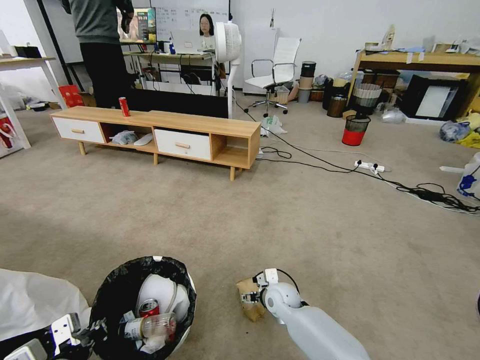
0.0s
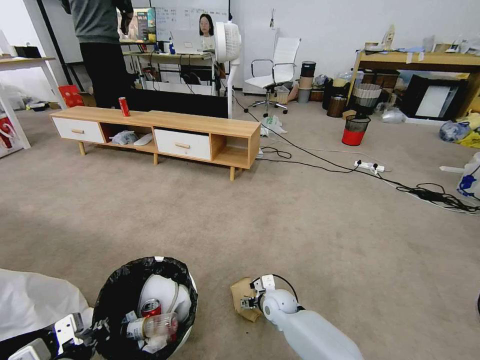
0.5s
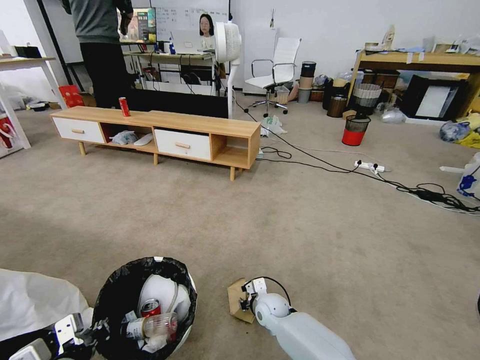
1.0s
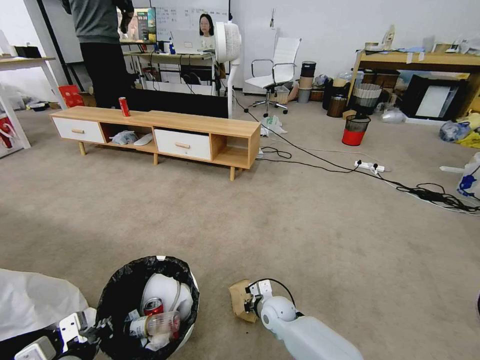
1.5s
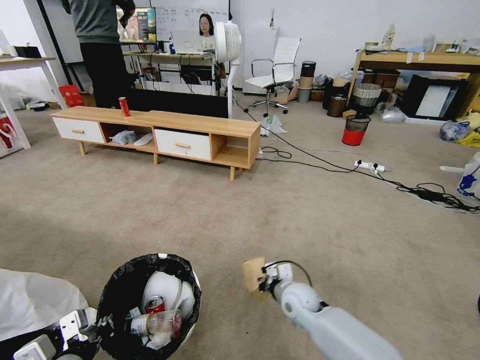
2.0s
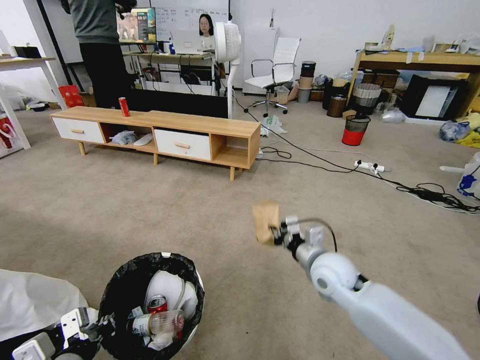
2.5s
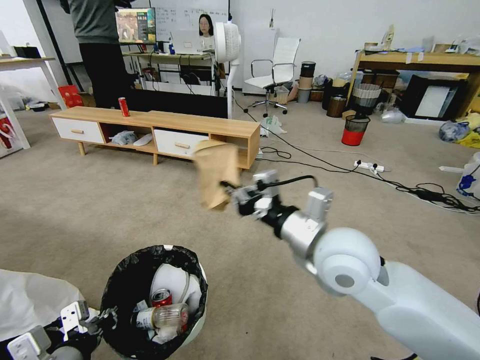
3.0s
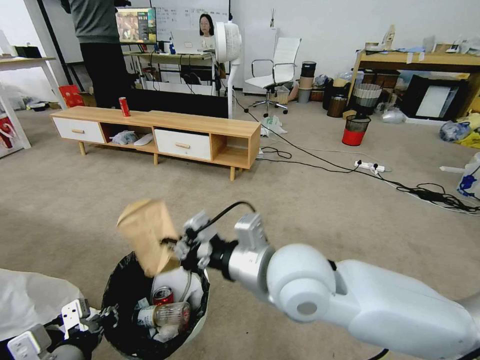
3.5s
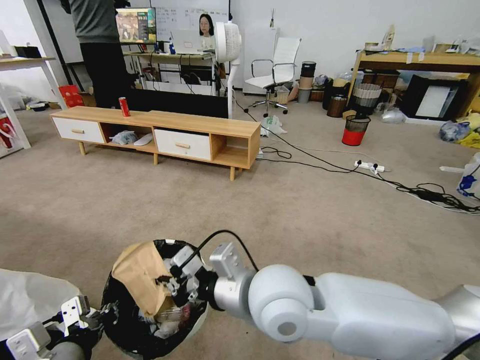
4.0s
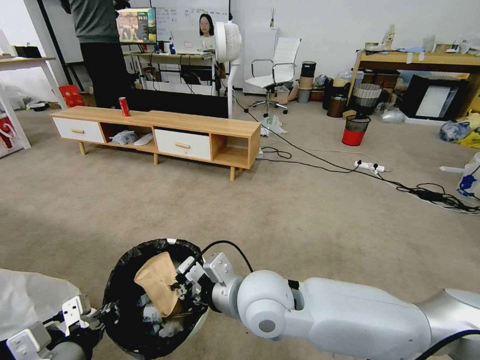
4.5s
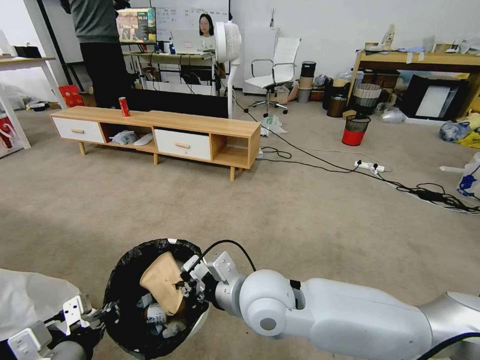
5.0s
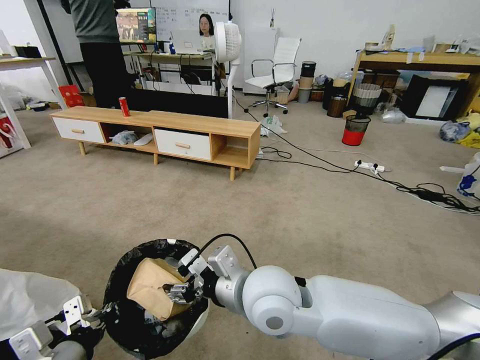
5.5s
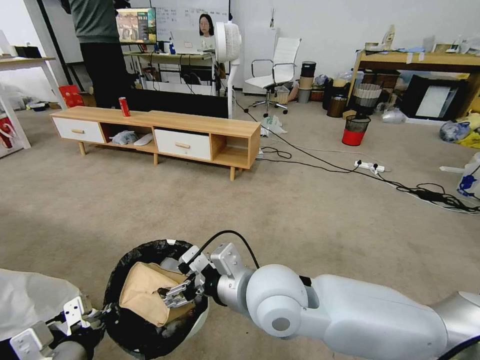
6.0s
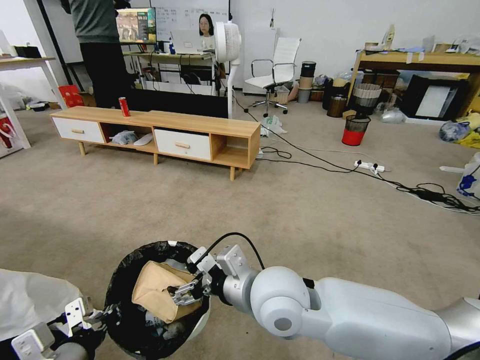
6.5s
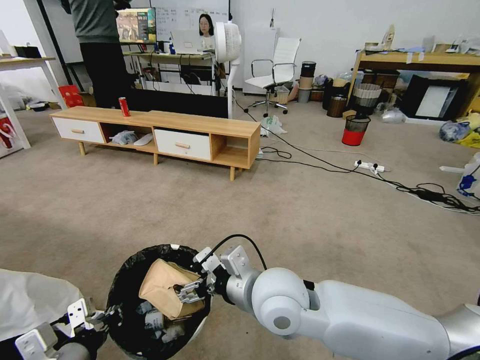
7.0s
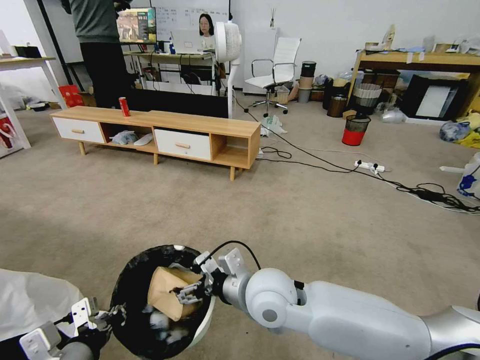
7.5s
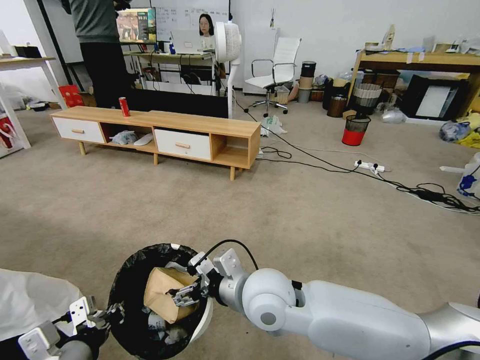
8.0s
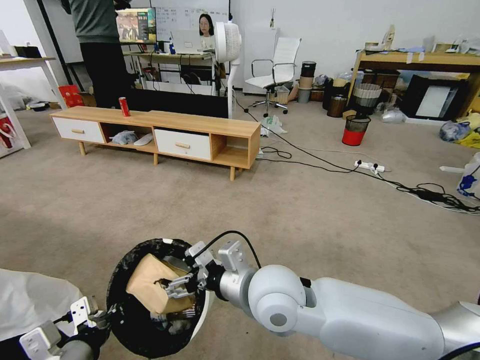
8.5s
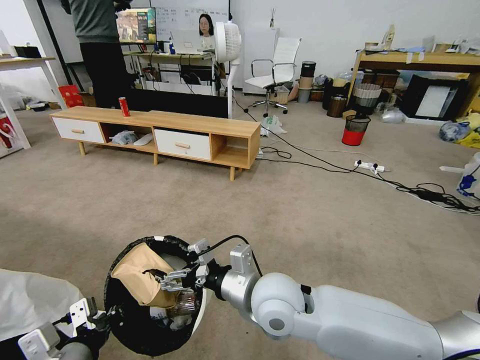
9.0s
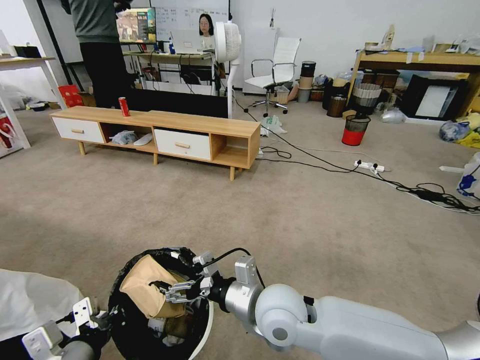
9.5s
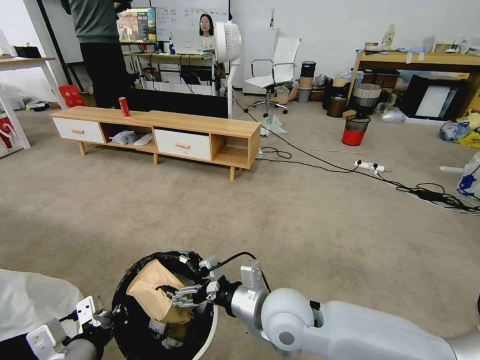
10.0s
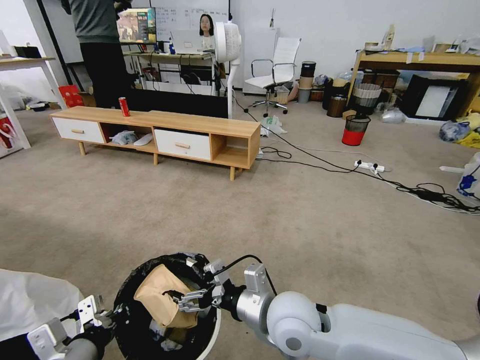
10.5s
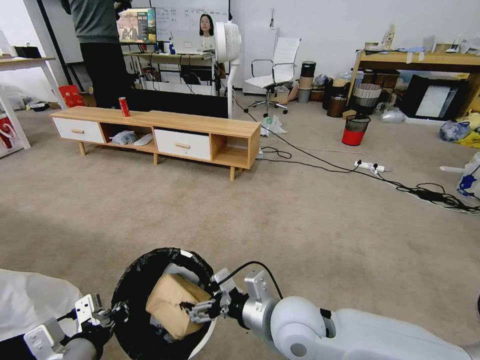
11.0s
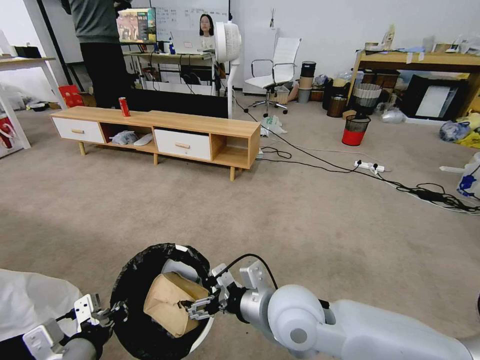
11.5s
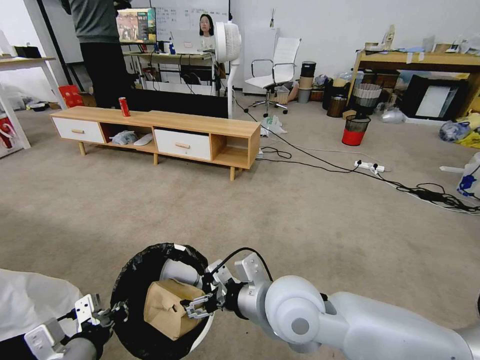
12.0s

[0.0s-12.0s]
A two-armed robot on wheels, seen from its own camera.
Task of the whole recording: Pick up the trash bin and place the garbage on the floor into it.
0.0s to 2.0s: The right gripper ends up roughly 5 cm from where it was, and closes.
2.0s to 4.0s: The right gripper is displaced upward and backward by about 30 cm.
4.0s to 6.0s: The right gripper opens up.
6.0s to 8.0s: The right gripper moves about 5 cm.
8.0s to 10.0s: The left gripper closes its fingers. The right gripper ends up about 5 cm from where it was.
10.0s to 12.0s: The right gripper is displaced upward by approximately 5 cm.

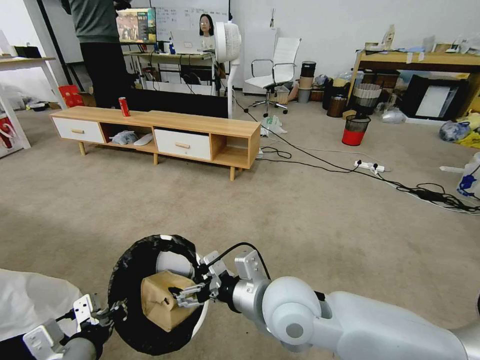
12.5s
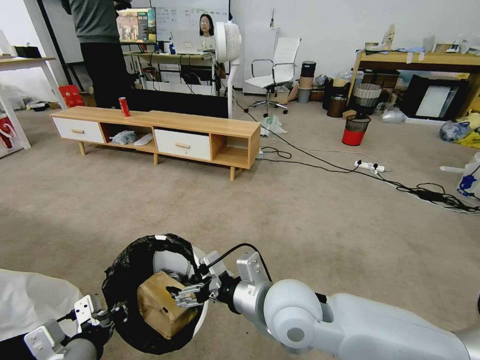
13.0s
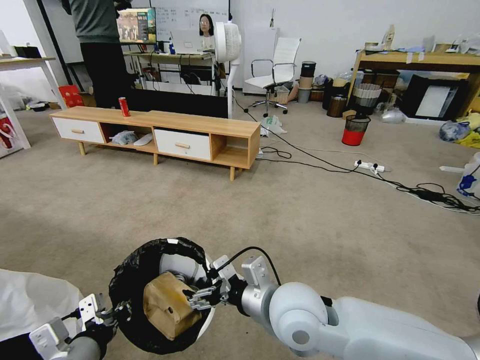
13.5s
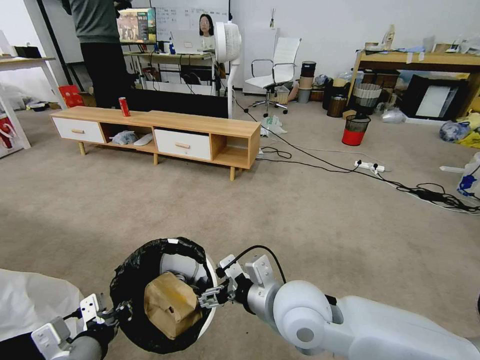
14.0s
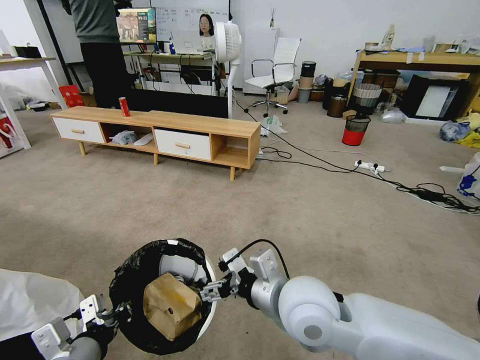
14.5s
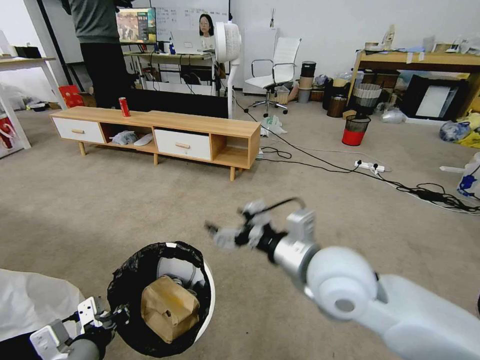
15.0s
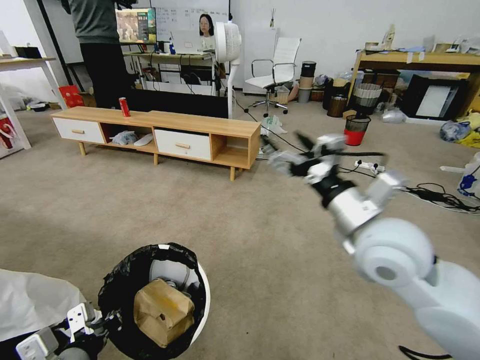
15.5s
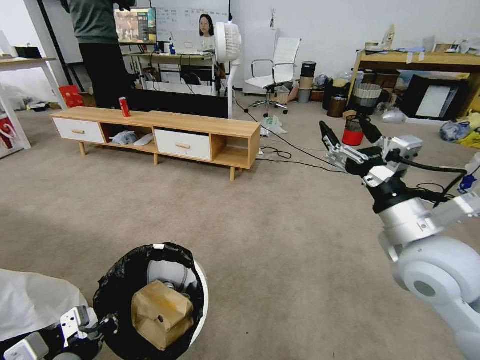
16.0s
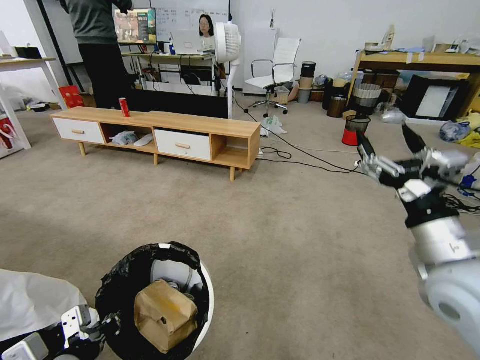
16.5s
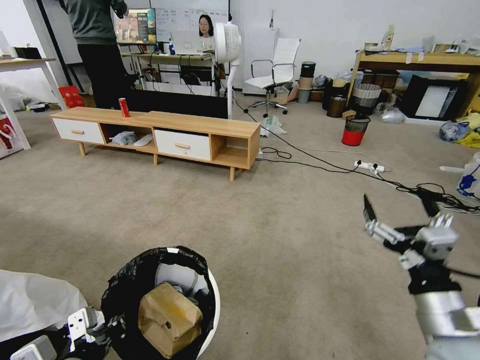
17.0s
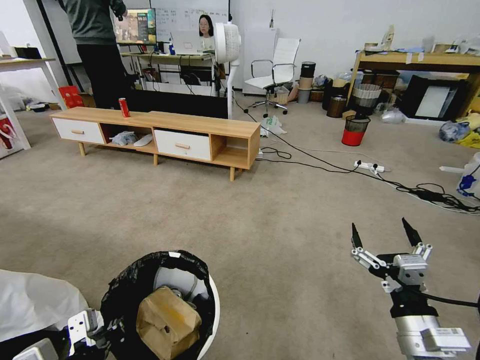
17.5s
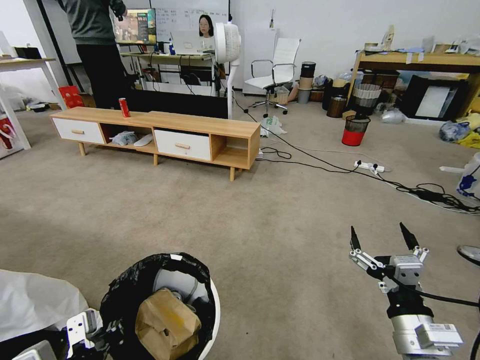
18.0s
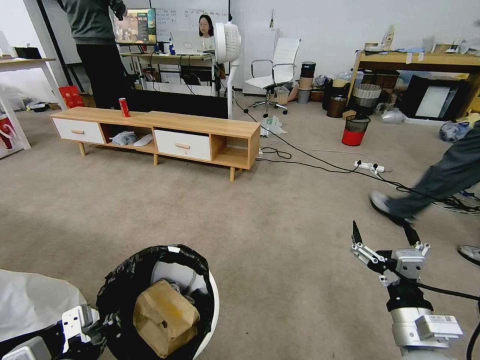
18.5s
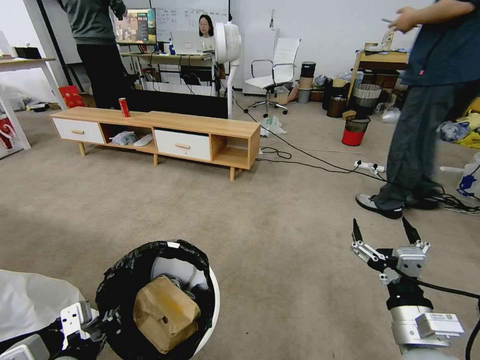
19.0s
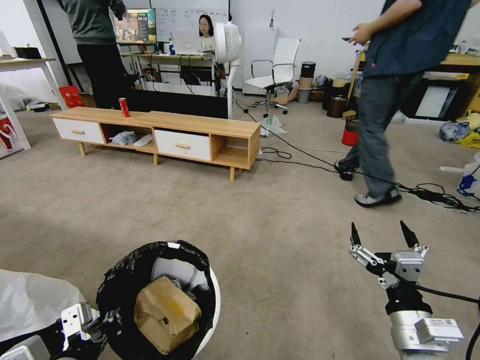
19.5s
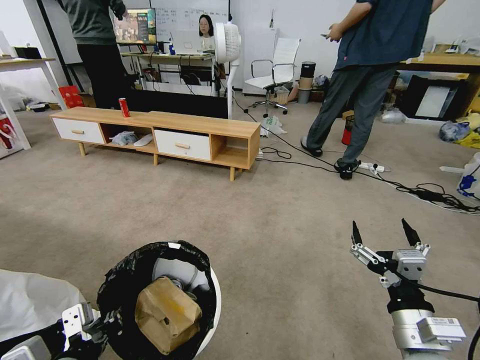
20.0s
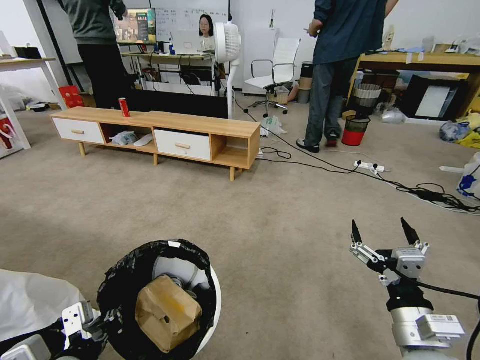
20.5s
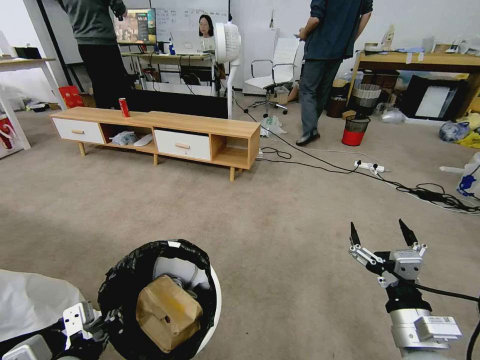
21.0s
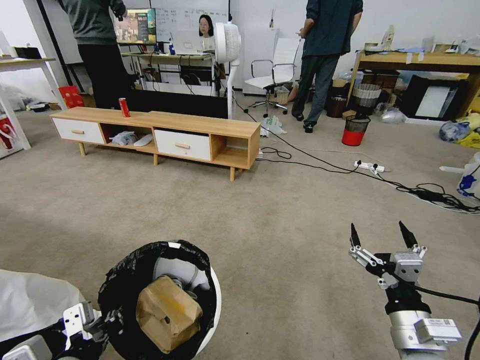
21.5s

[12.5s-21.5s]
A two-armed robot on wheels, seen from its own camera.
Task of the whole recording: Pick up the trash bin and place the garbage on the floor into it.
12.5s to 14.5s: The grippers move only a little.
14.5s to 17.0s: The right gripper heads to the right, covering roughly 20 cm; the left gripper ends up some 5 cm from where it was.
17.0s to 19.5s: The right gripper heads downward, covering some 5 cm.
19.5s to 21.5s: The two grippers keep their place.
